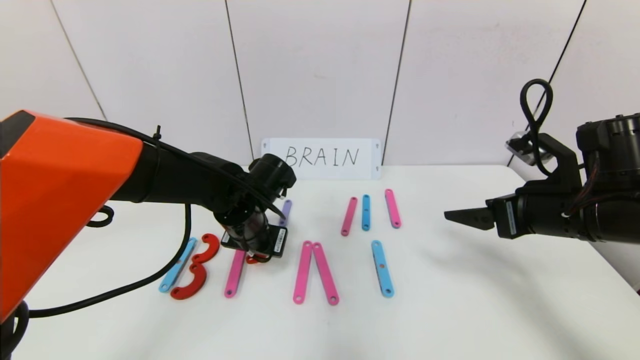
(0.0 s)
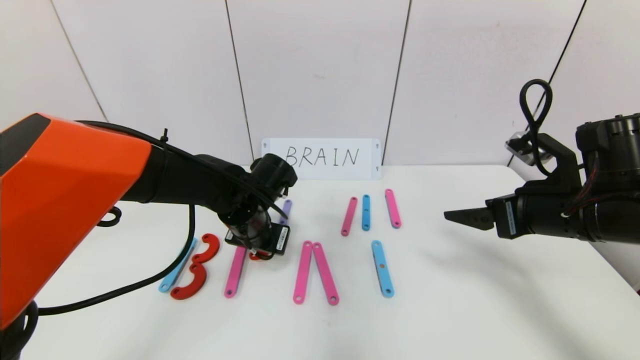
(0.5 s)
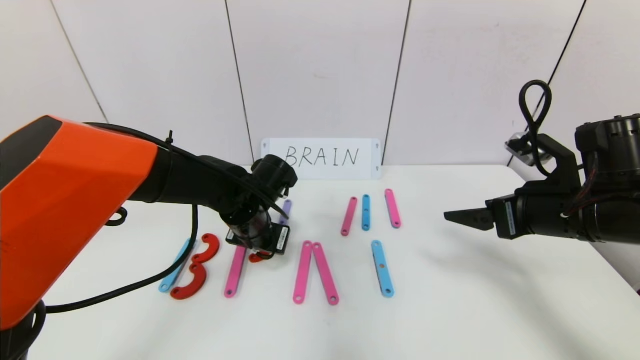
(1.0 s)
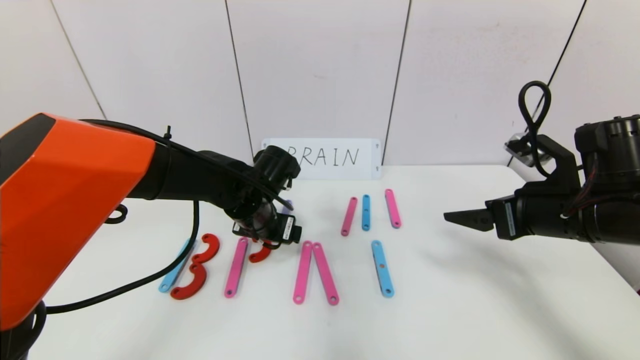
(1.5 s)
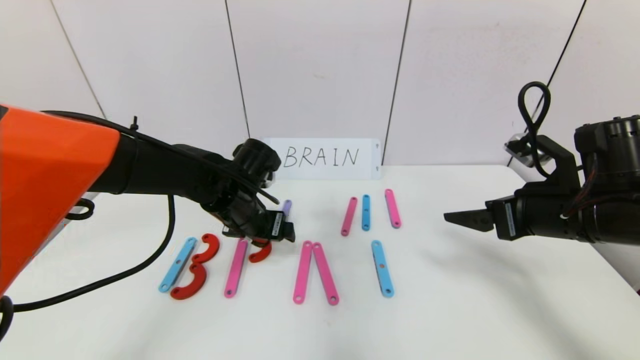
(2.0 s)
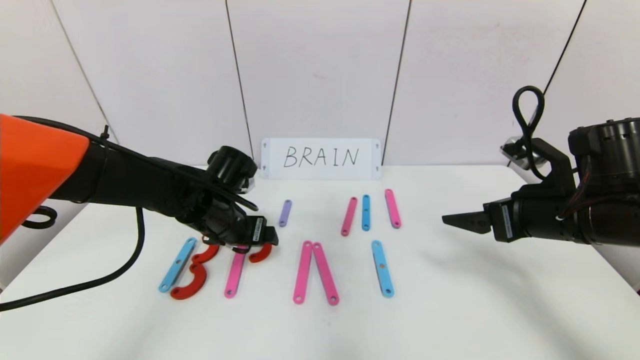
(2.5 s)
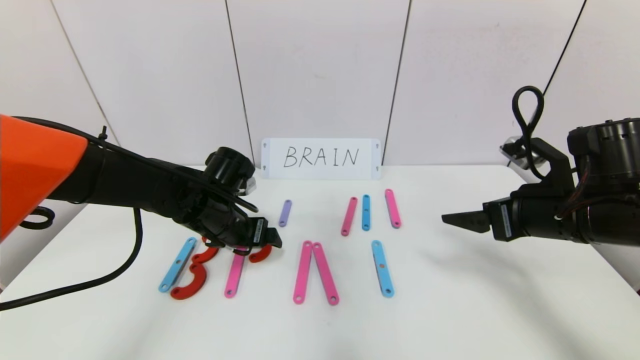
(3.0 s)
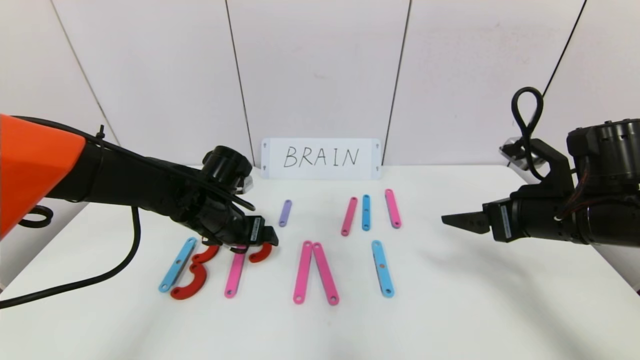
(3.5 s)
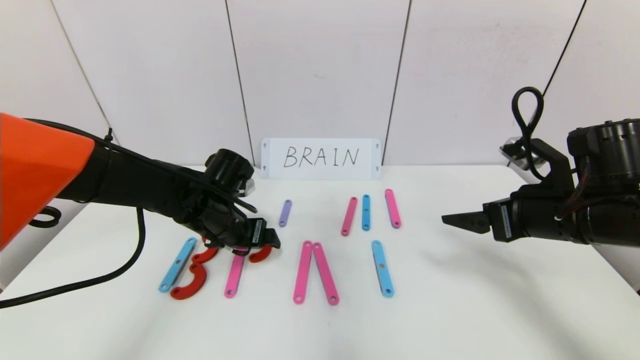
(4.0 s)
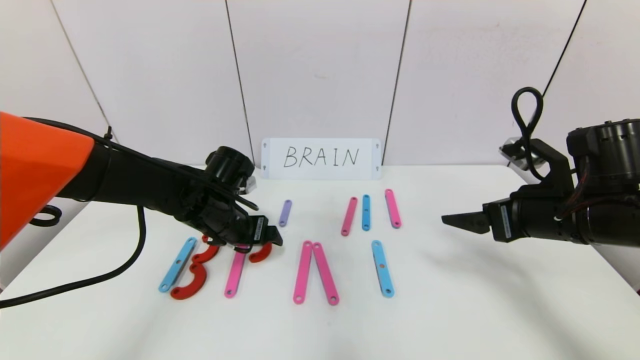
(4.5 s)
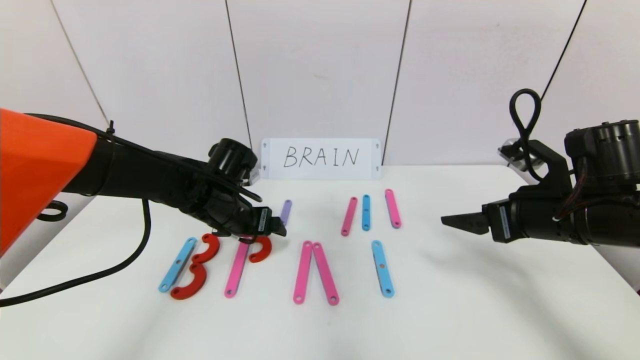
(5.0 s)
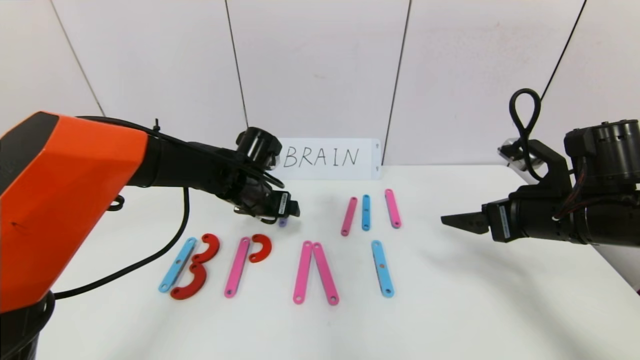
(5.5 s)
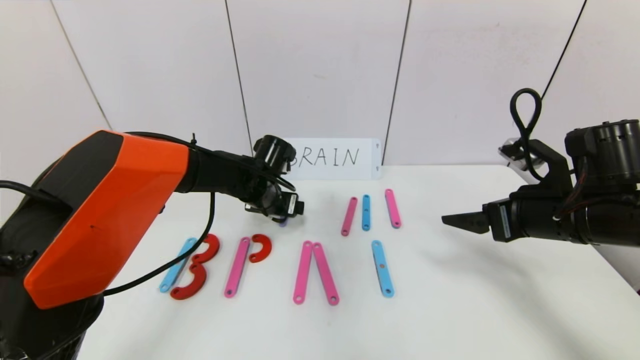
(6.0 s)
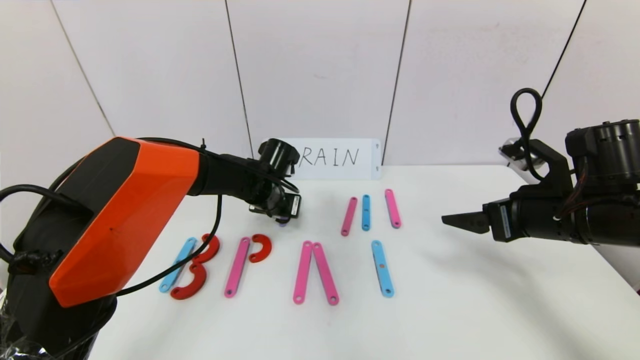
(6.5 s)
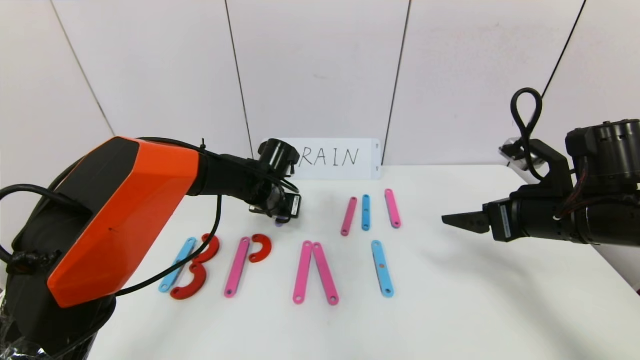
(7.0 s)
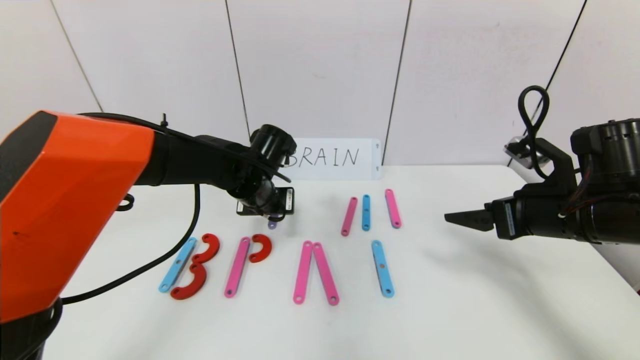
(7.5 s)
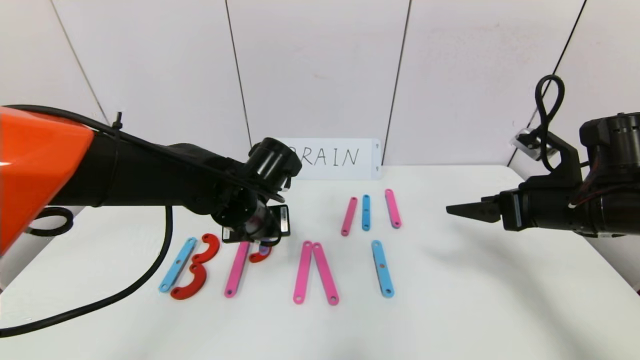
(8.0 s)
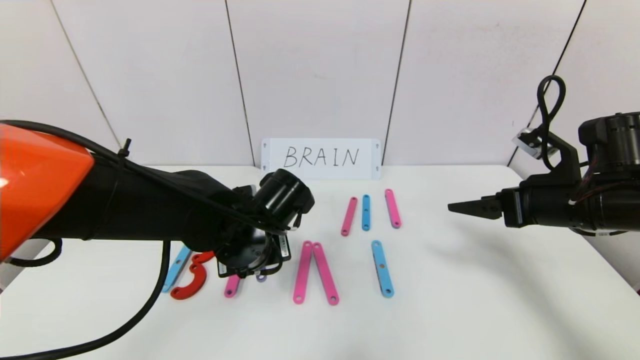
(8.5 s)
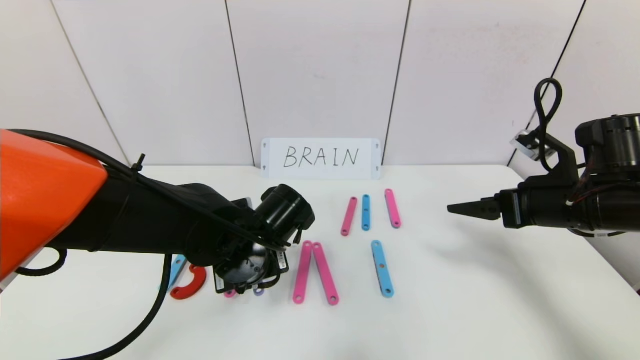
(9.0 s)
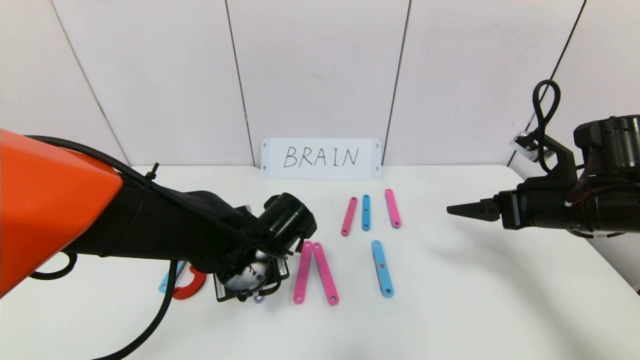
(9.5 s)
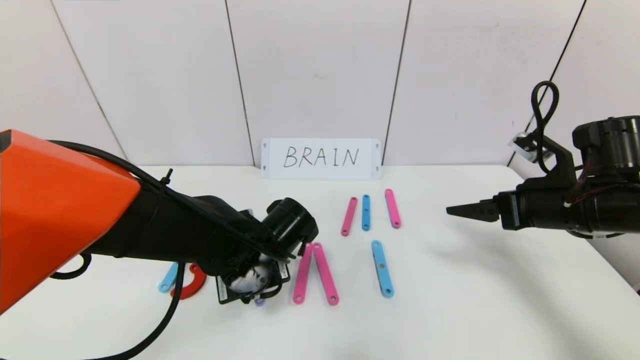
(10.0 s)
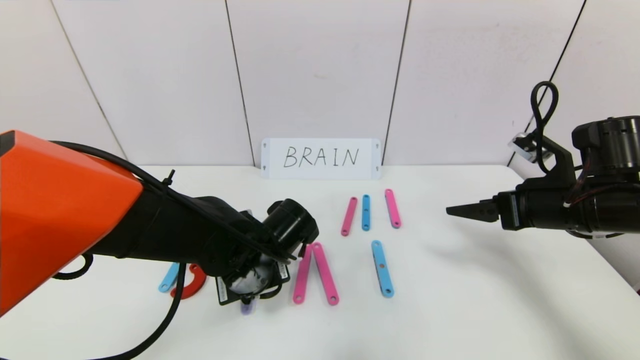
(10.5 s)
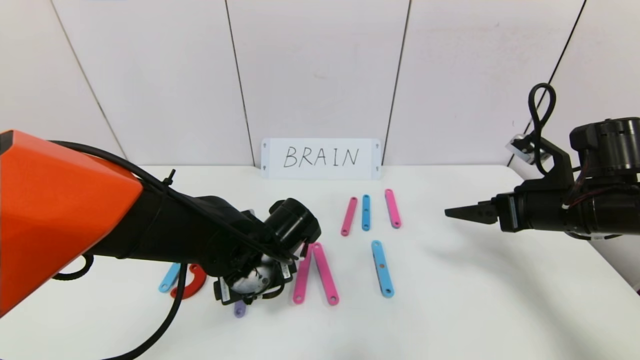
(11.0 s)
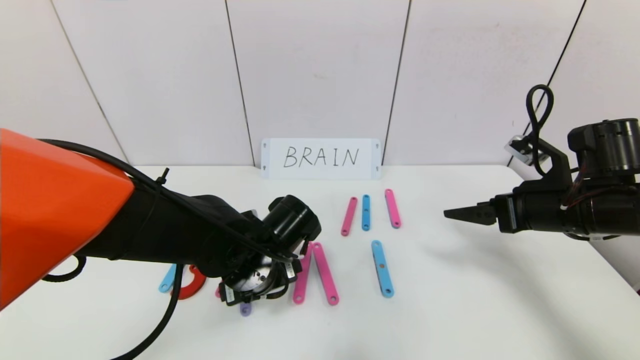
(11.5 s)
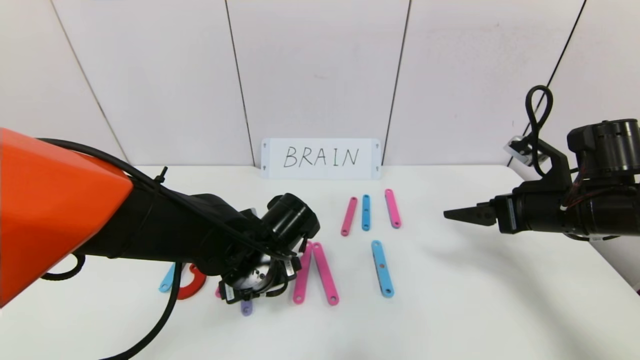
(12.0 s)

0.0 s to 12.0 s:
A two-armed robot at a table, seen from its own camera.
Task of the whole recording: rearrange the word baai as brain.
0.0 to 2.0 s: The left gripper opens.
2.0 to 4.0 s: The grippers move only a little.
4.0 to 6.0 s: The left gripper moves forward and to the right, roughly 10 cm.
6.0 to 8.0 s: The left gripper heads backward, covering approximately 10 cm, and closes.
8.0 to 10.0 s: The left gripper is displaced downward by approximately 5 cm.
10.0 to 12.0 s: The left gripper opens up.

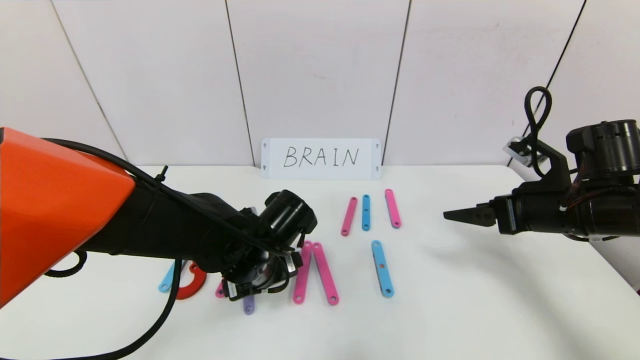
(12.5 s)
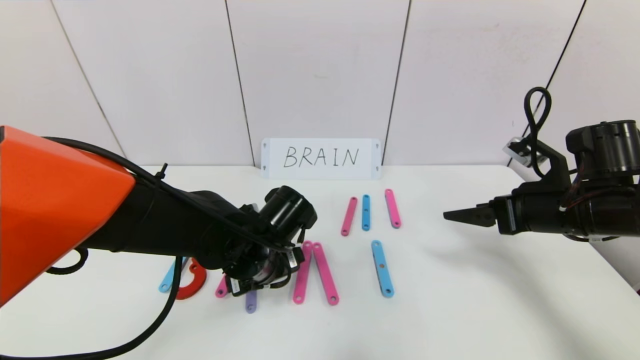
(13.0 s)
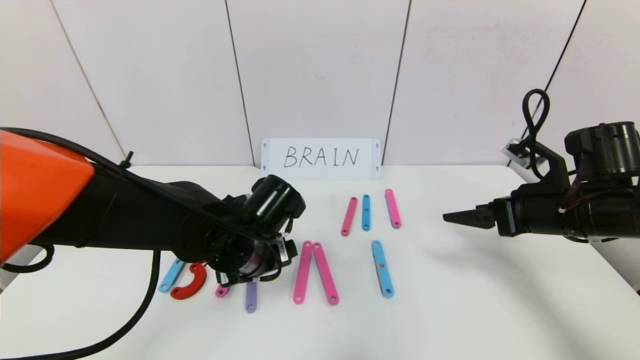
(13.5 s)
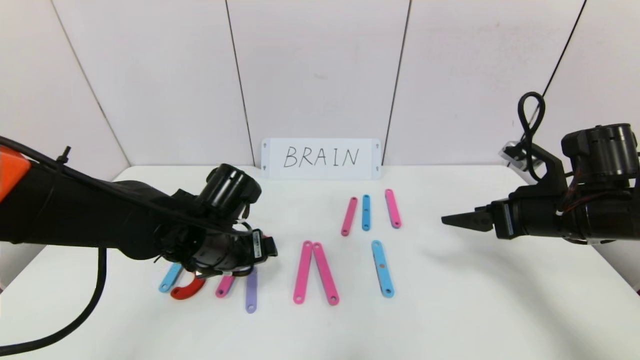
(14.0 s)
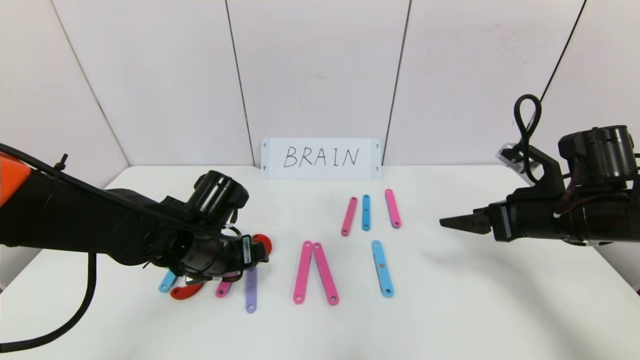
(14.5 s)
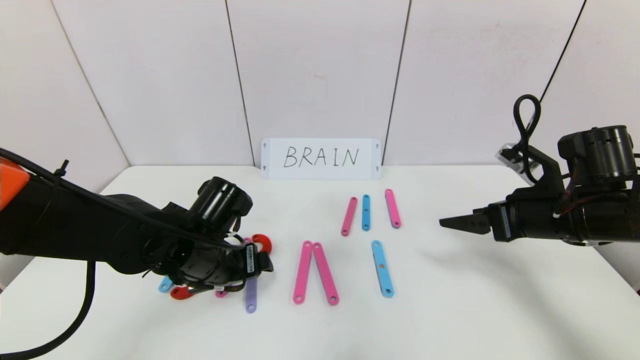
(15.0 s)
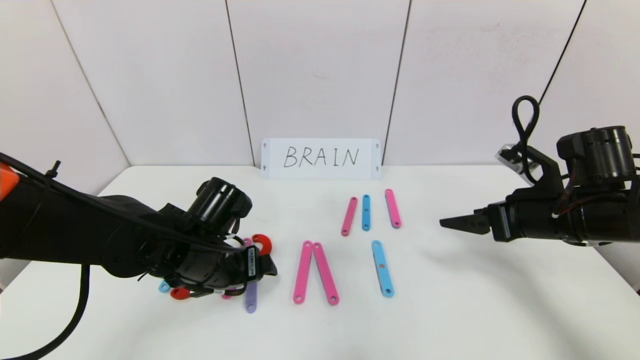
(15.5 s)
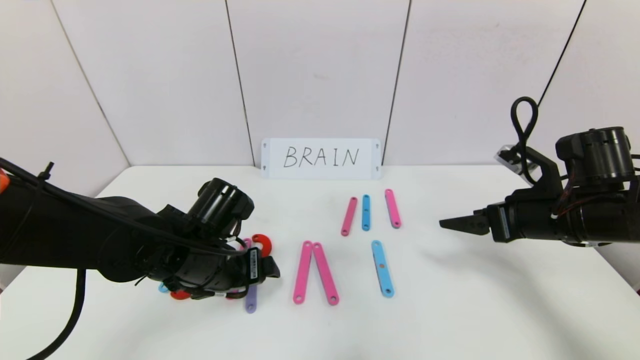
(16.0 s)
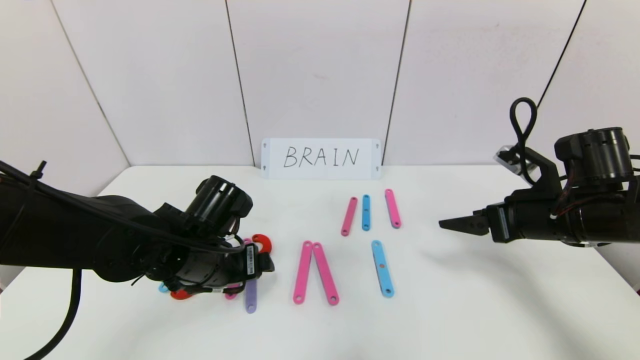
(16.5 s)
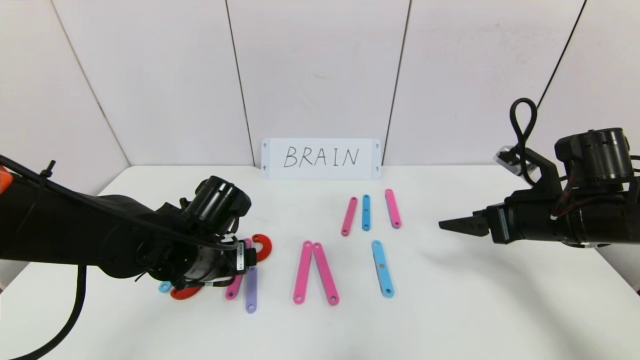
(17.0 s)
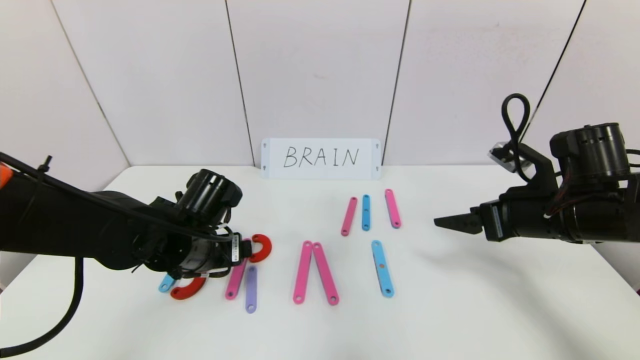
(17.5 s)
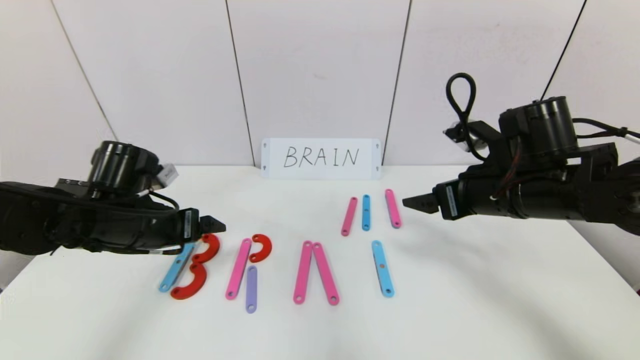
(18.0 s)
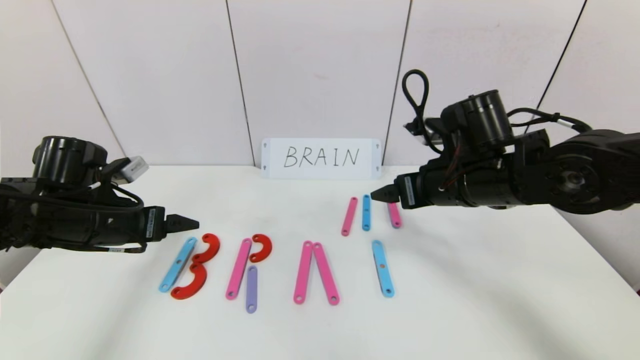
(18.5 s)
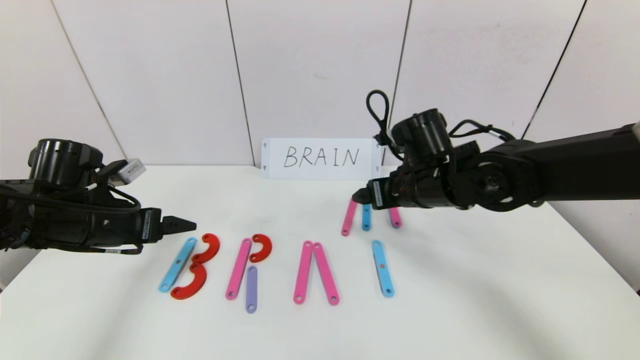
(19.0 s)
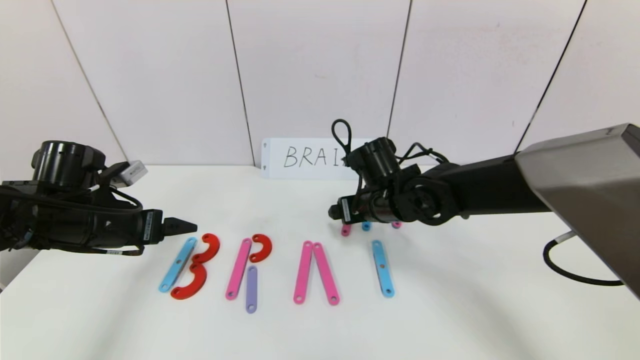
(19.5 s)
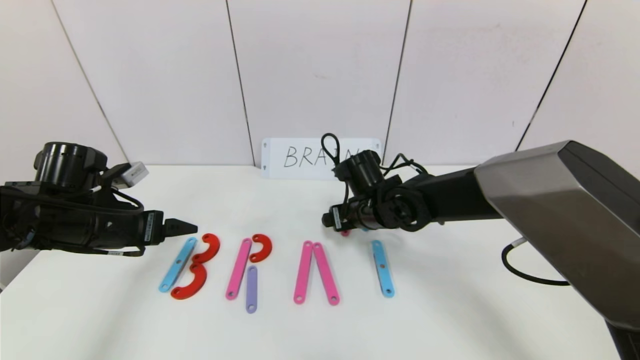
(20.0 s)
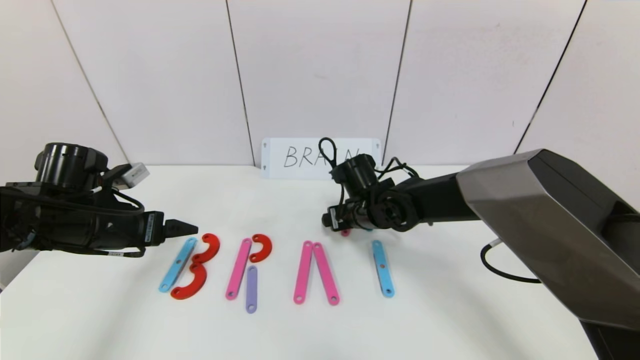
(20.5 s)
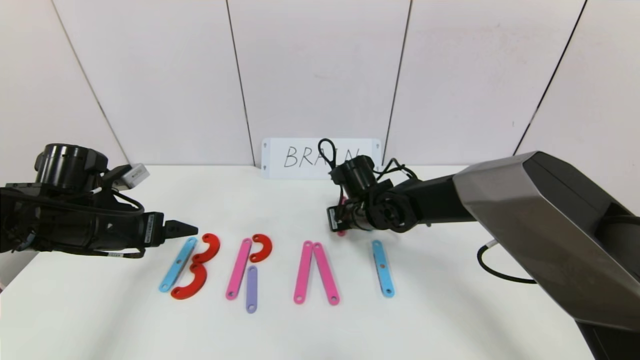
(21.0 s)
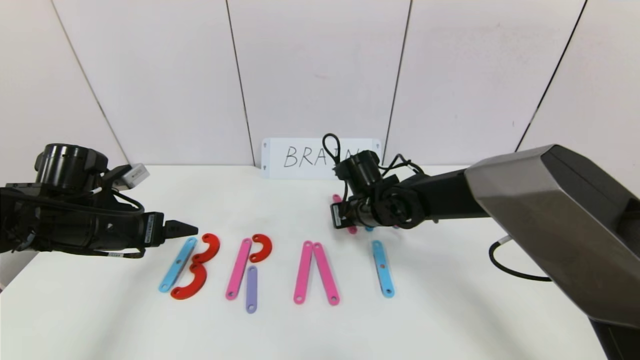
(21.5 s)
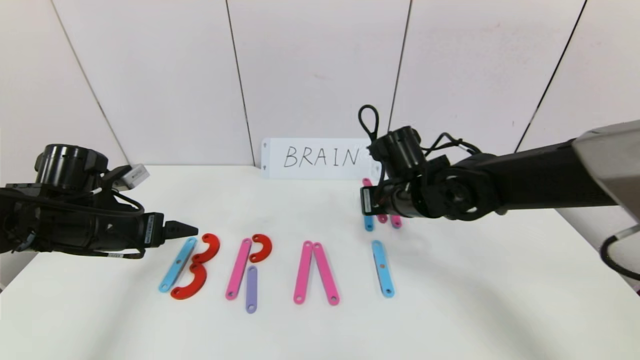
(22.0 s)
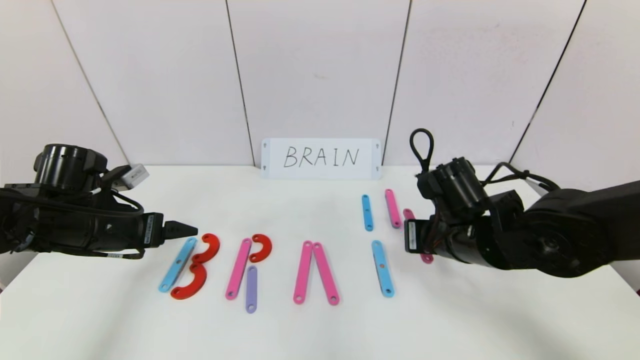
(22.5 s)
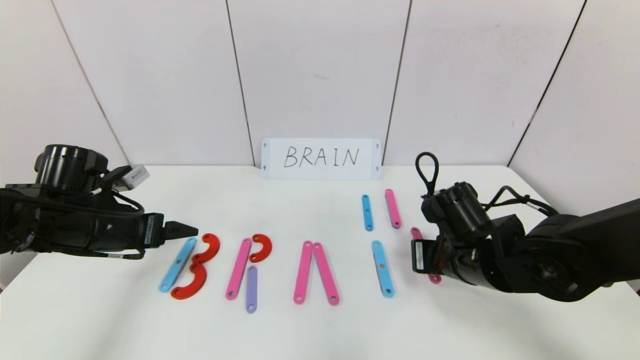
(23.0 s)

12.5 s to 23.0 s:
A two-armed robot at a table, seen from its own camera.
Task of the whole recording: rearrange the word baai as brain.
Step, 12.5 to 17.5 s: Place the character R between first character B and third character A.
12.5 to 14.5 s: The left gripper heads to the left, covering about 10 cm.
14.5 to 16.5 s: The grippers stay close to where they were, moving slightly.
16.5 to 19.0 s: Both grippers move to the left, some 15 cm.
19.0 to 21.0 s: The right gripper goes roughly 15 cm downward, to the left and forward, and closes.
21.0 to 23.0 s: The right gripper heads backward and to the right, covering roughly 15 cm.
